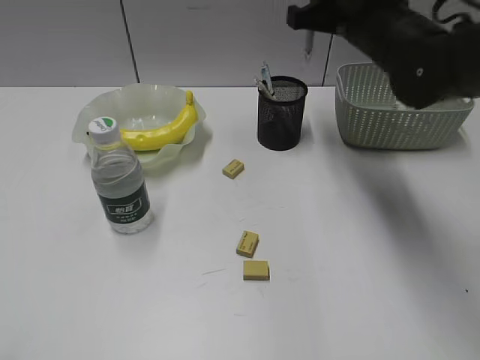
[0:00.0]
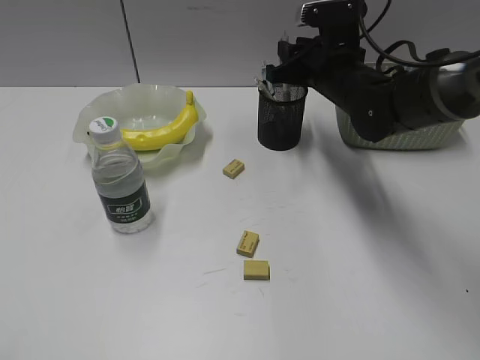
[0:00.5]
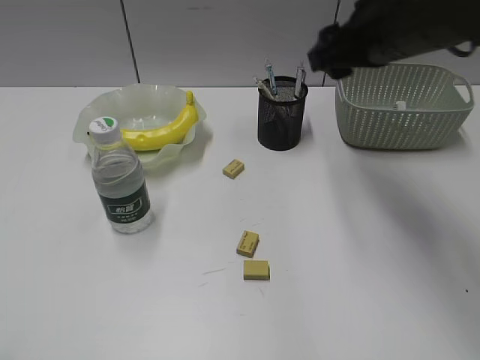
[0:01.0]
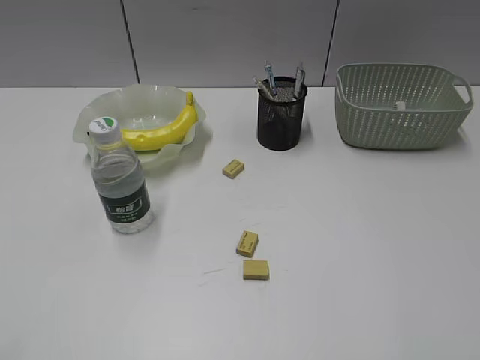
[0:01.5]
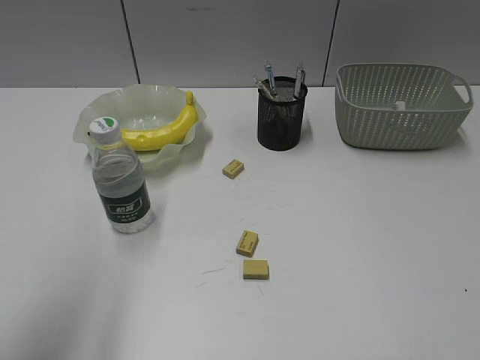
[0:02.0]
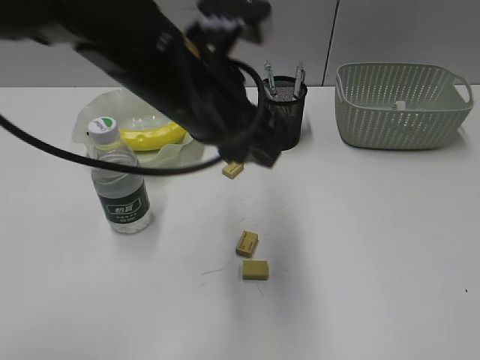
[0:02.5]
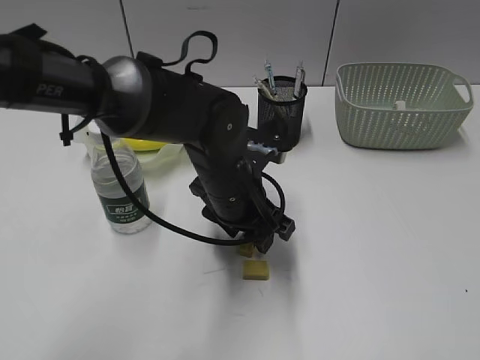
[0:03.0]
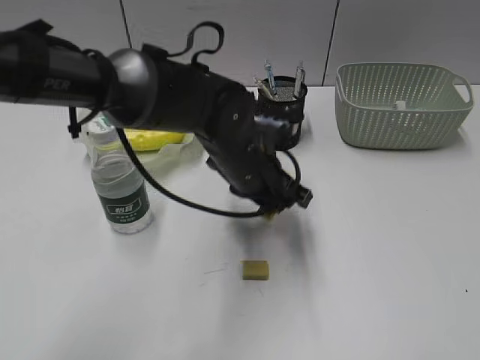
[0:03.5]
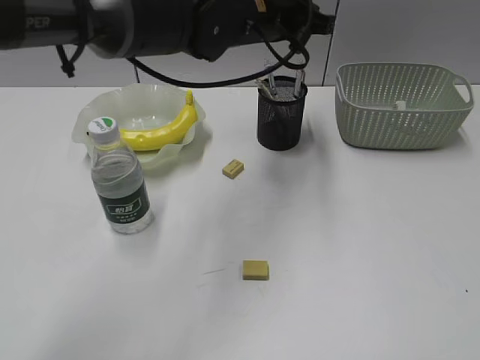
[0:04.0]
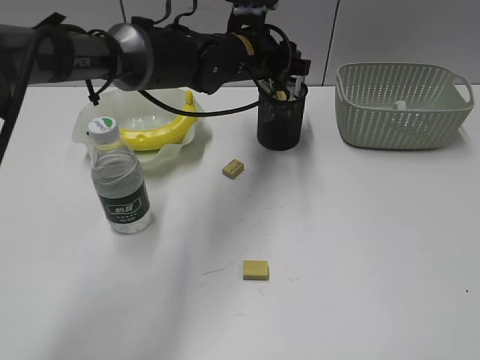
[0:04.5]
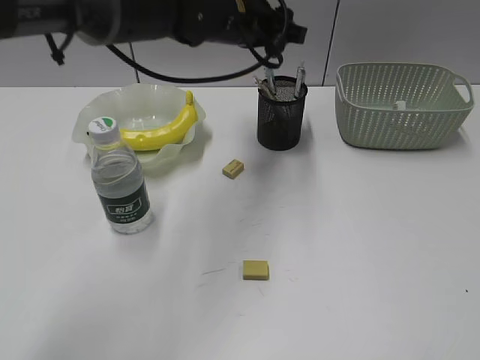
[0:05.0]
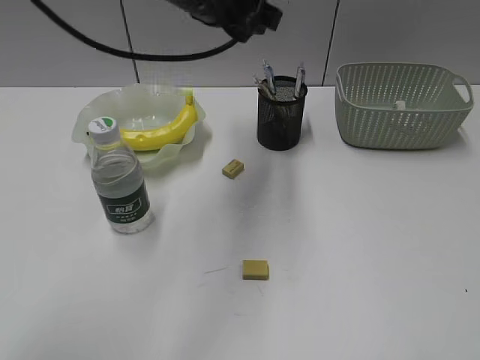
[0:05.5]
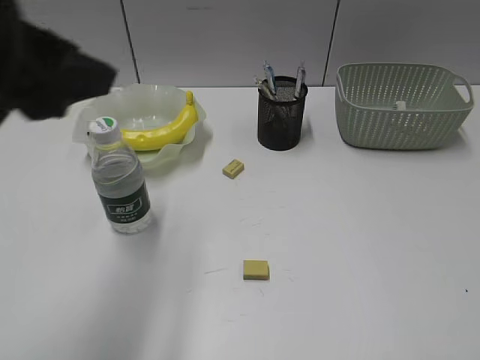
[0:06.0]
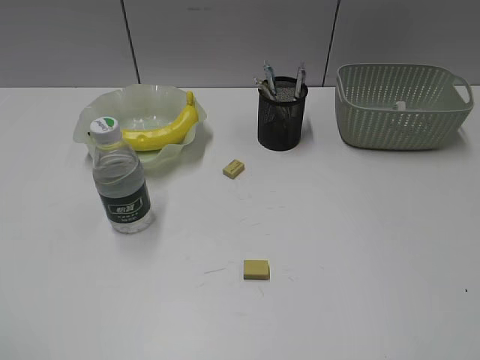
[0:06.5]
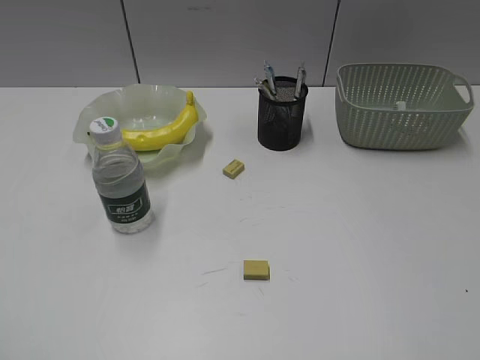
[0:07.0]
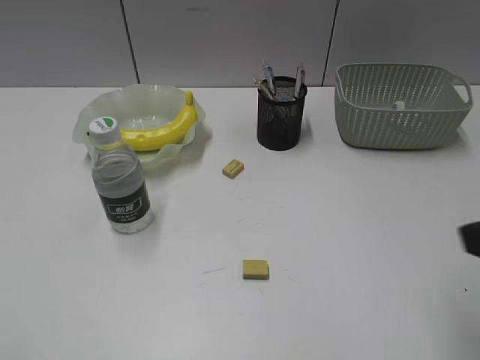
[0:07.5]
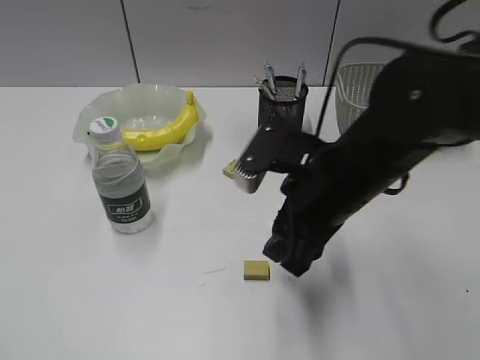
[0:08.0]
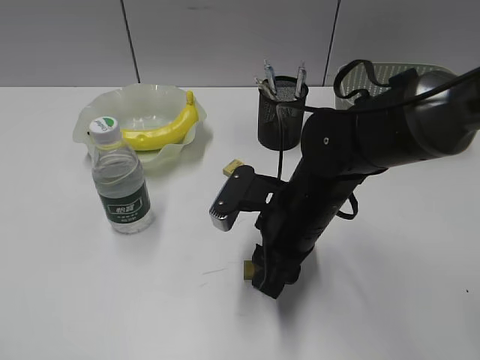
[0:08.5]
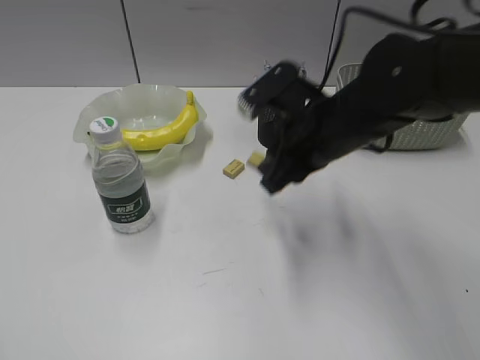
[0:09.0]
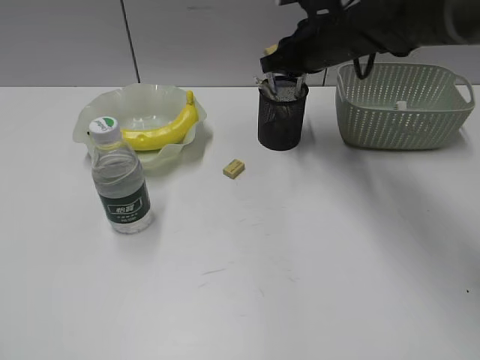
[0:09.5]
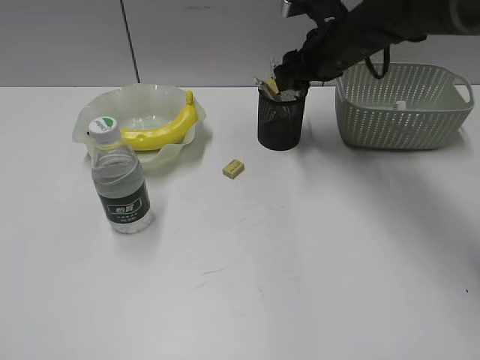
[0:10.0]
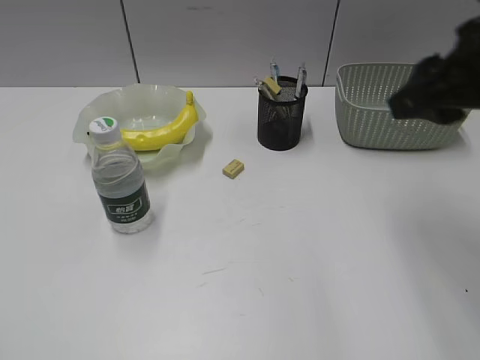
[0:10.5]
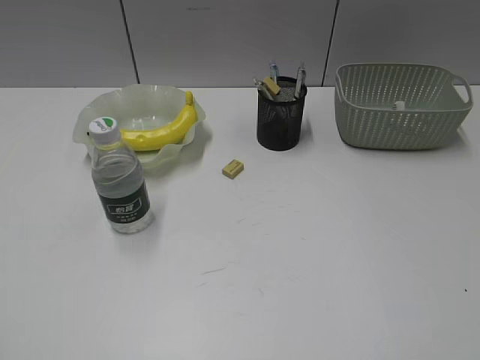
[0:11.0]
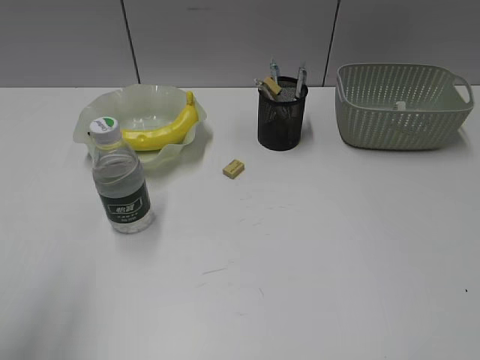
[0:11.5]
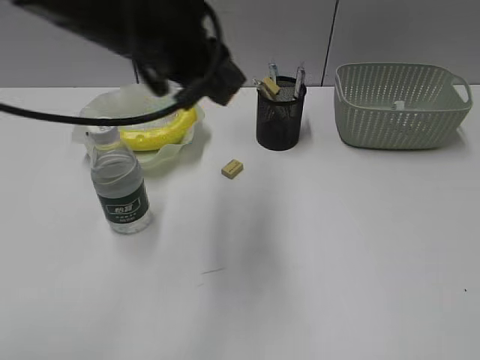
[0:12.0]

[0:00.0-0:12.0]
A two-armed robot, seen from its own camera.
Step, 1.0 to 3.0 s: Grasp the eraser with left gripper.
Step, 3.5 to 4.5 s: Place the eraser in pen holder with left gripper.
Step, 5.0 to 8.5 s: Grasp the eraser with right gripper.
Step, 9.0 to 10.0 s: Place the eraser in pen holder with right gripper.
0.0 to 2.0 s: The right gripper heads backward and to the right, covering roughly 40 cm, and opens its fingers. The left gripper moves forward and to the right, about 15 cm.
2.0 to 4.0 s: The left gripper is displaced to the right and forward by roughly 40 cm, and closes its fingers.
4.0 to 6.0 s: The left gripper goes some 30 cm backward and to the left, and opens up.
6.0 to 8.0 s: The right gripper moves forward, to the left and downward, roughly 35 cm. The left gripper heads backward and to the left, covering roughly 25 cm.
8.0 to 10.0 s: The right gripper shifts some 20 cm forward, and closes, then opens again.
10.0 to 12.0 s: The right gripper goes approximately 50 cm backward, while the left gripper travels forward and to the right by approximately 40 cm.

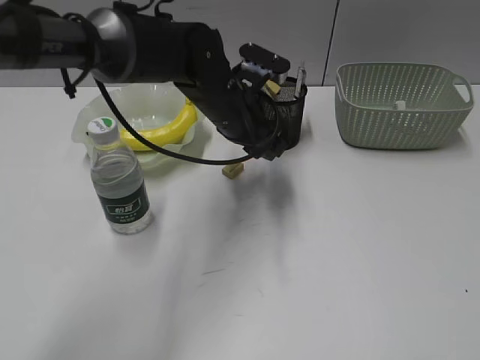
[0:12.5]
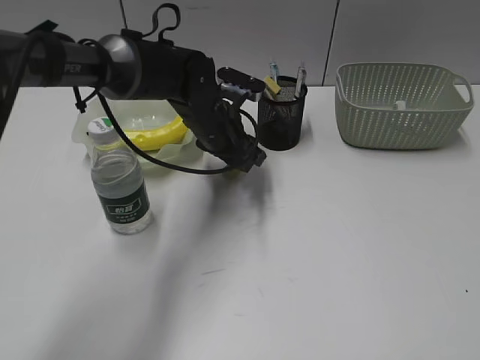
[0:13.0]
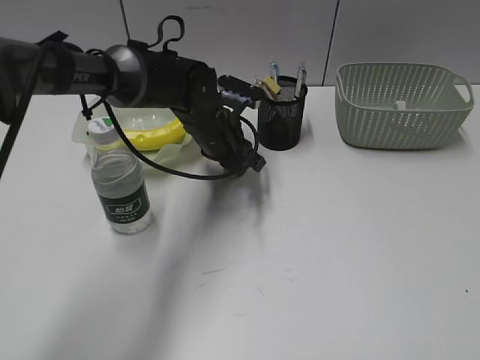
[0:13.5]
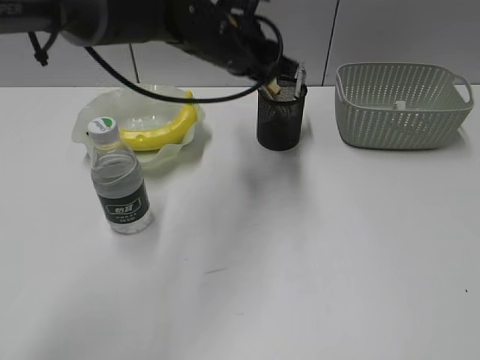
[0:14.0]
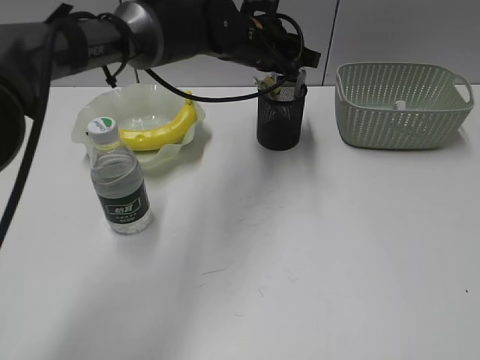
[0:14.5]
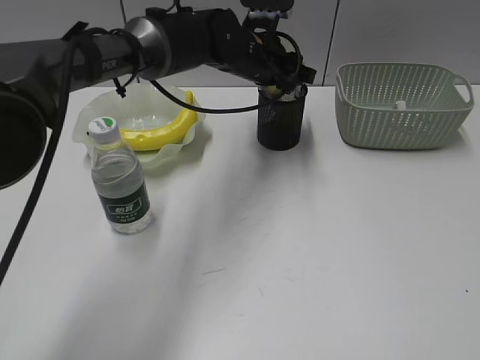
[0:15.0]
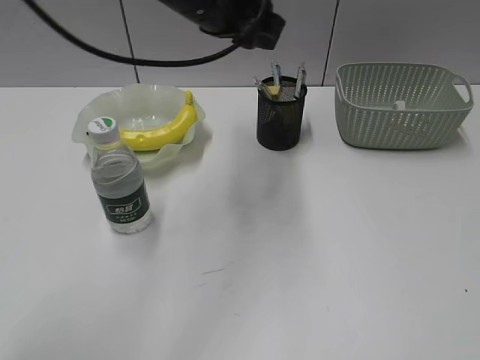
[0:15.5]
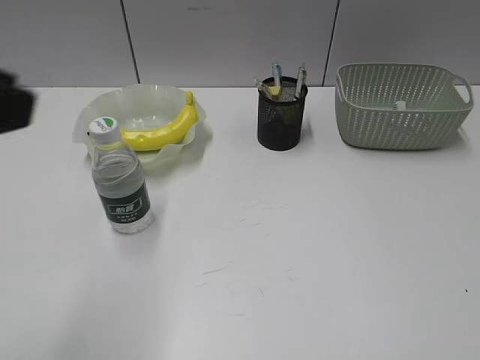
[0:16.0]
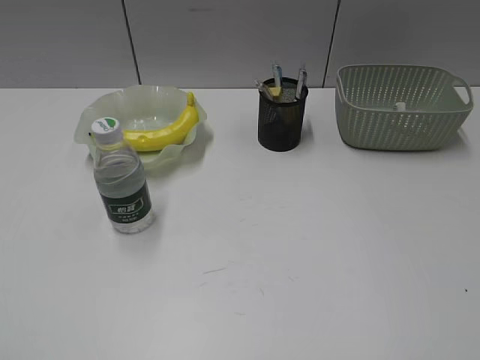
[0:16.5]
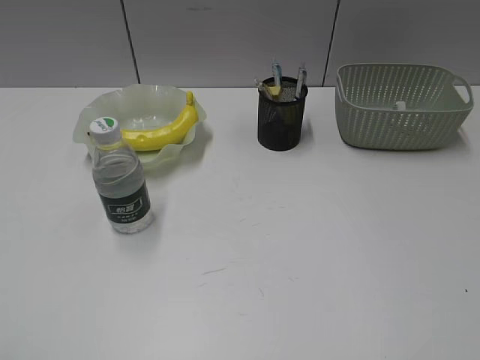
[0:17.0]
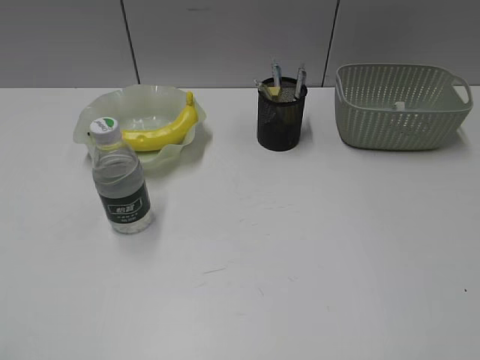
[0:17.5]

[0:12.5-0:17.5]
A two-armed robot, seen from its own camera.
Step, 14.0 to 14.5 s: Place the eraser in pen holder with left gripper.
12.5 to 15.0 s: The left gripper moves up and down over some 10 cm, changing direction 2 times, and closes, then reopens.
15.0 to 17.5 s: The left gripper goes roughly 60 cm backward and to the left.

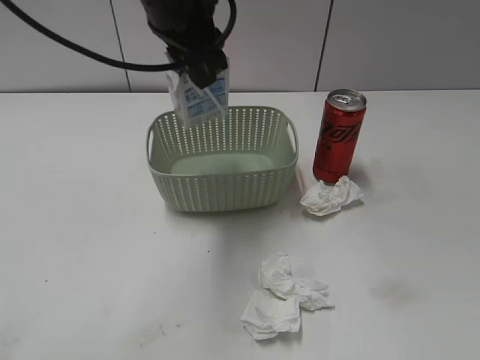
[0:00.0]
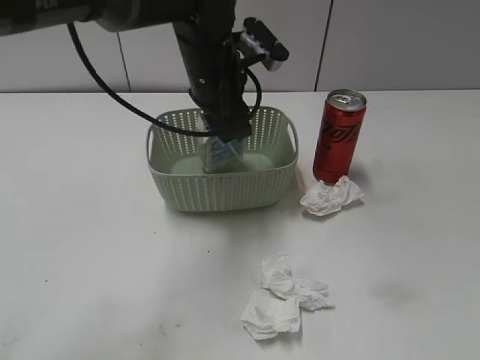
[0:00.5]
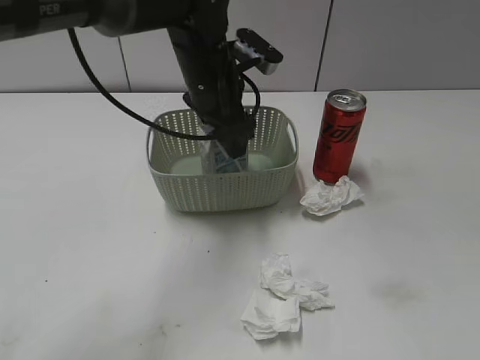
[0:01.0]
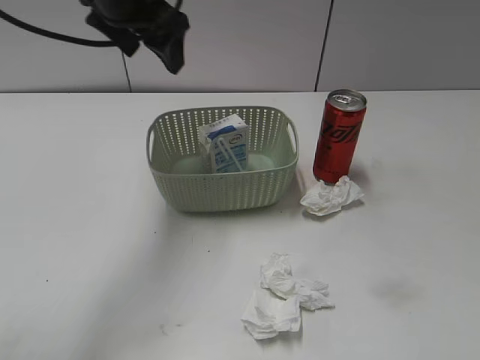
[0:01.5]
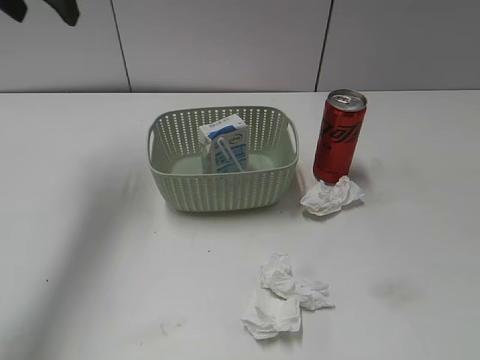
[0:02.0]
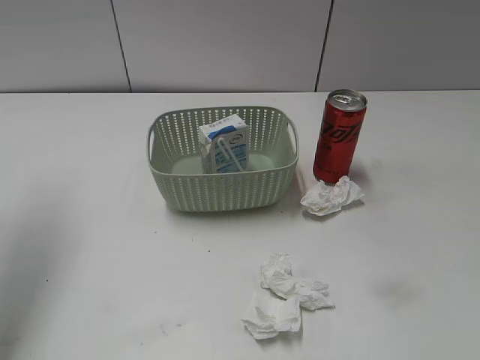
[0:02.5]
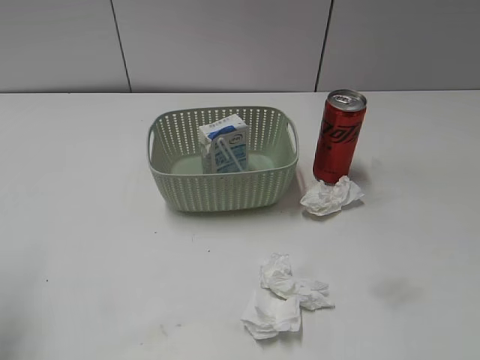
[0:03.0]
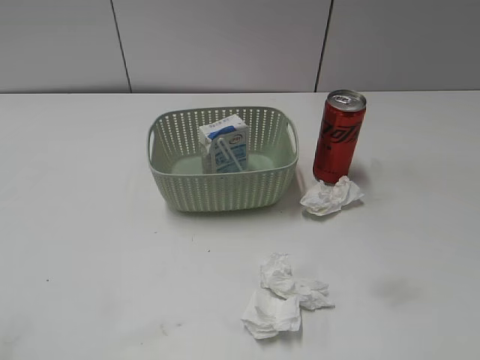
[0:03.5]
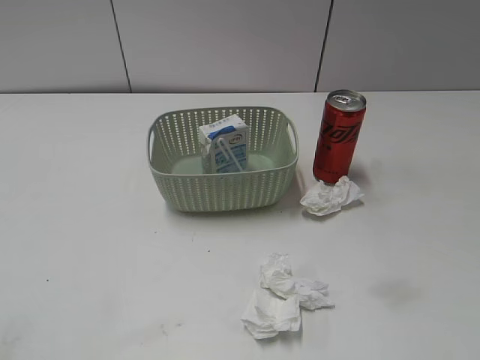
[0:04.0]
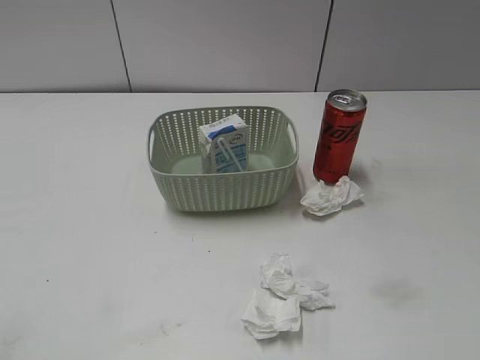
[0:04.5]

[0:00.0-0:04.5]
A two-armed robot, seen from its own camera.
0.0 to 2.0 s: The left gripper goes some 20 cm to the left, and opens its fingers.
2.0 to 4.5 s: The left gripper travels backward by some 40 cm.

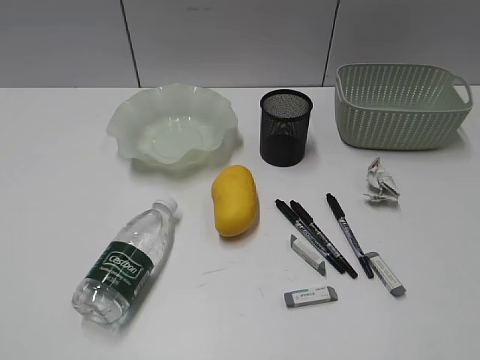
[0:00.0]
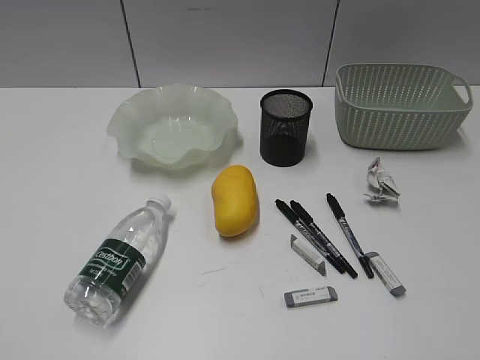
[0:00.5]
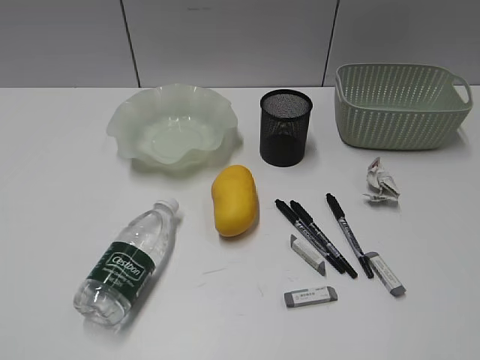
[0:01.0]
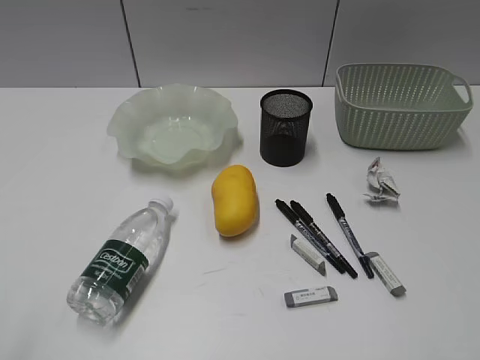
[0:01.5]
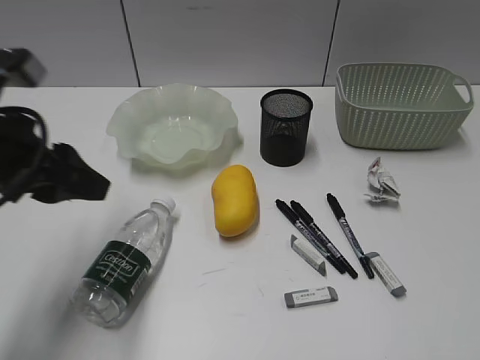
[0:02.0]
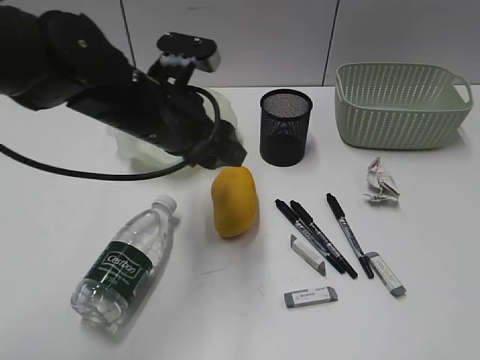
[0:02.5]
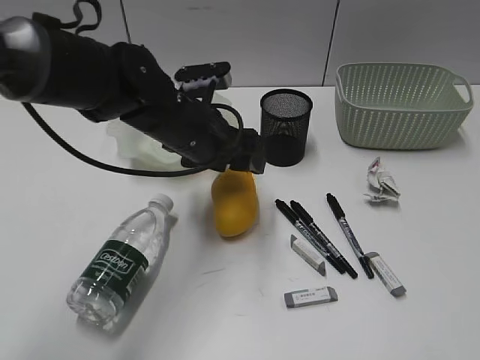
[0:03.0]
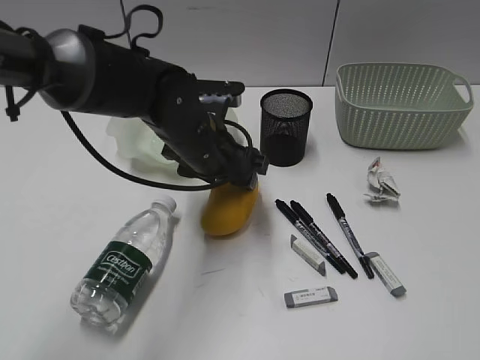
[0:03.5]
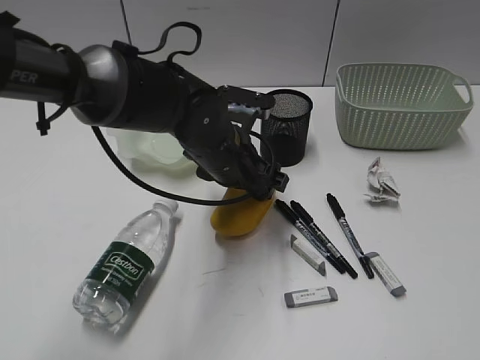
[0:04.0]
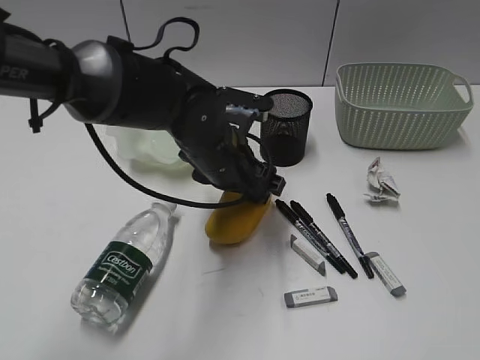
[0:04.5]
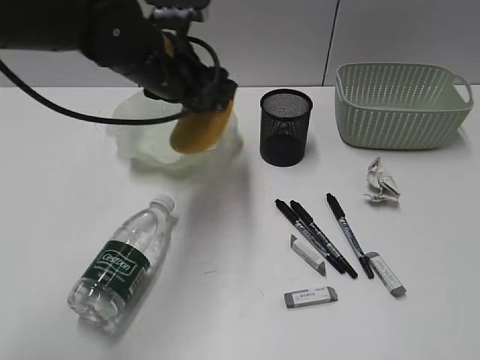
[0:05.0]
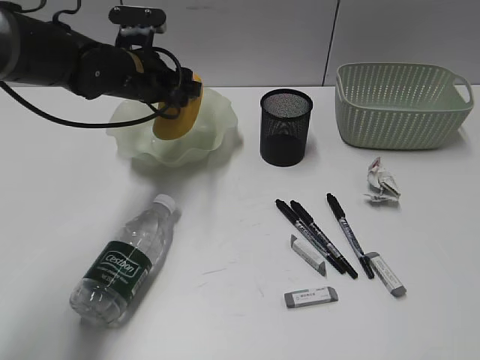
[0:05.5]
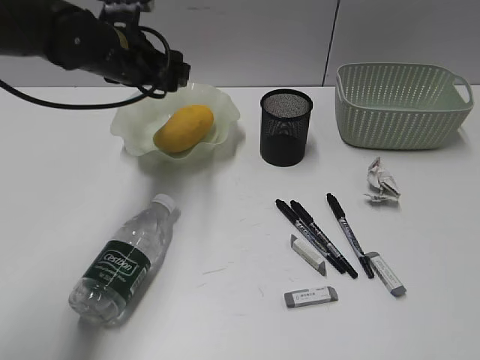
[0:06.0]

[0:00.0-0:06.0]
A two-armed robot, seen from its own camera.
Step, 1.5 to 4.0 s: Grasp the mango with left gripper.
Step, 4.5 to 5.5 s: Place the mango in the plate with left gripper.
2.0 to 4.0 s: The left gripper heads to the right, downward and forward, covering roughly 25 cm.
4.0 to 6.0 s: The left gripper shifts approximately 20 cm to the left, upward and forward.
